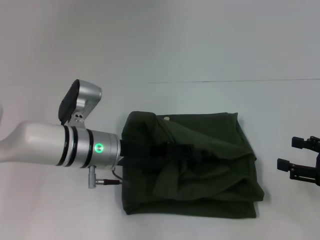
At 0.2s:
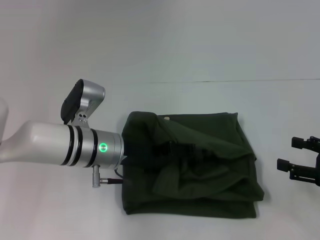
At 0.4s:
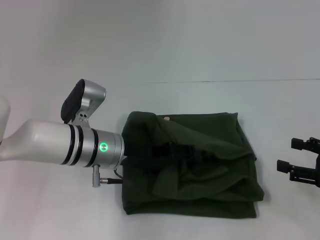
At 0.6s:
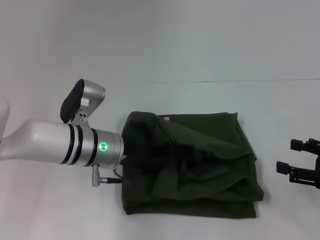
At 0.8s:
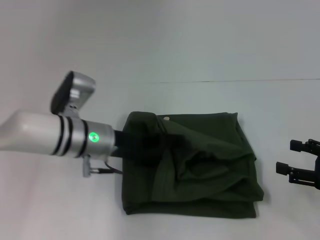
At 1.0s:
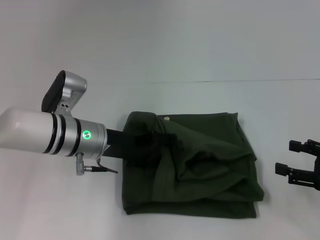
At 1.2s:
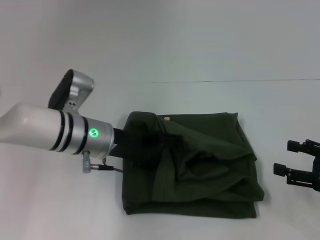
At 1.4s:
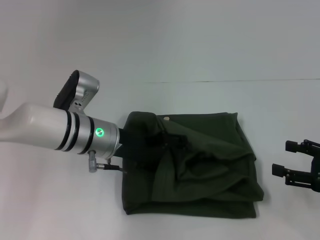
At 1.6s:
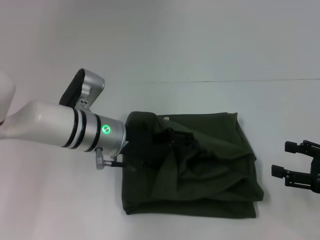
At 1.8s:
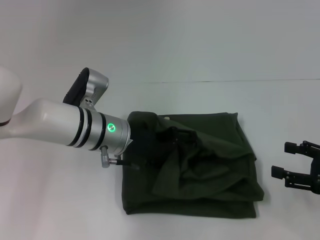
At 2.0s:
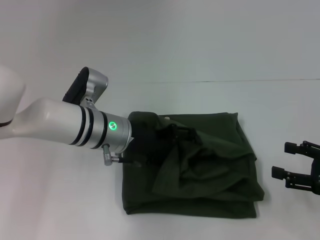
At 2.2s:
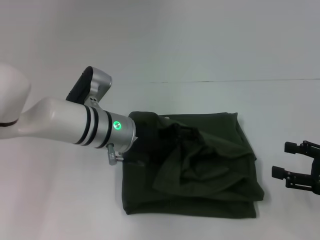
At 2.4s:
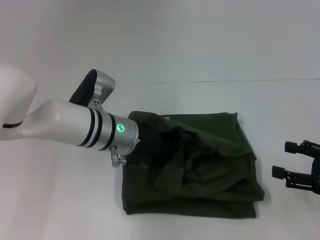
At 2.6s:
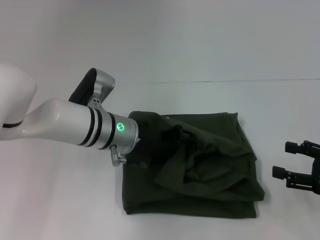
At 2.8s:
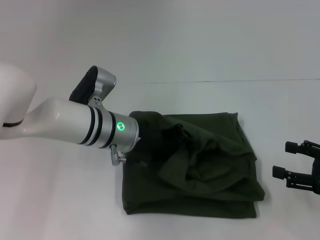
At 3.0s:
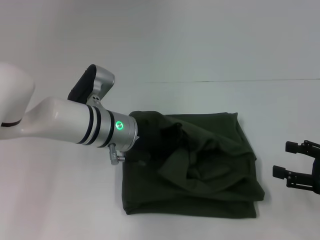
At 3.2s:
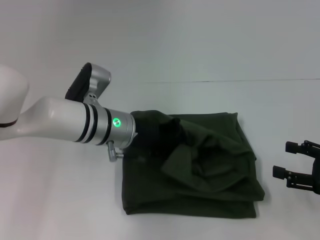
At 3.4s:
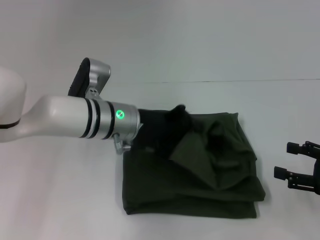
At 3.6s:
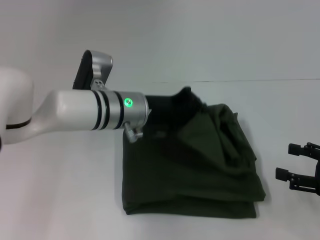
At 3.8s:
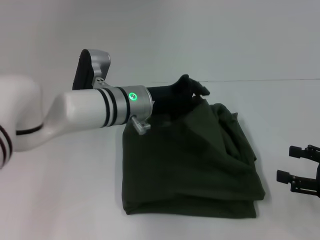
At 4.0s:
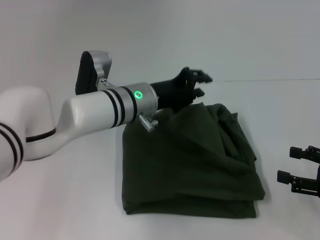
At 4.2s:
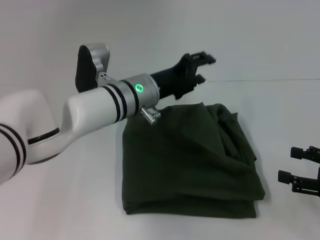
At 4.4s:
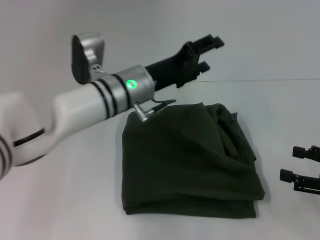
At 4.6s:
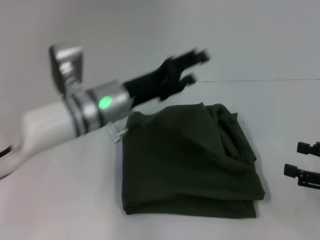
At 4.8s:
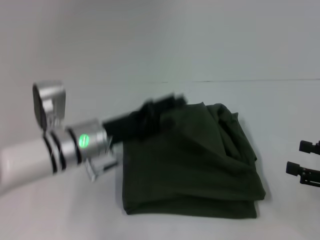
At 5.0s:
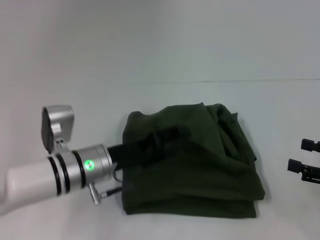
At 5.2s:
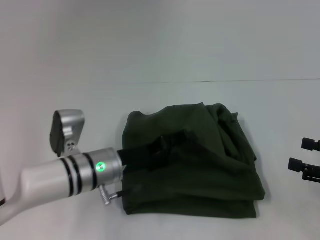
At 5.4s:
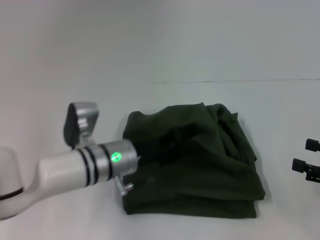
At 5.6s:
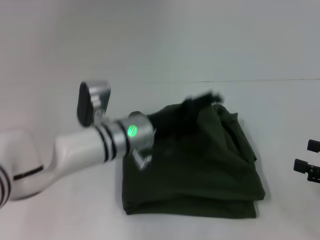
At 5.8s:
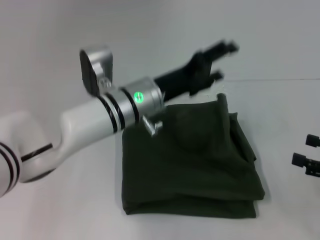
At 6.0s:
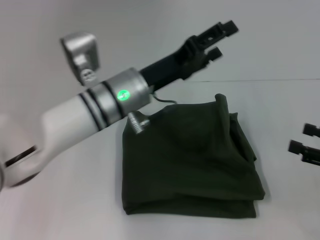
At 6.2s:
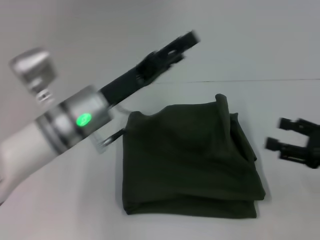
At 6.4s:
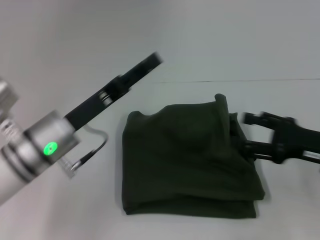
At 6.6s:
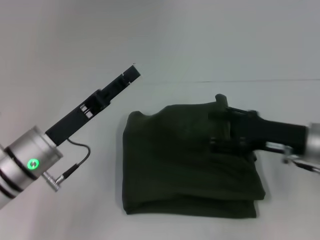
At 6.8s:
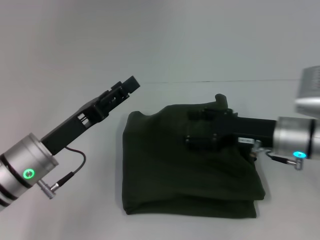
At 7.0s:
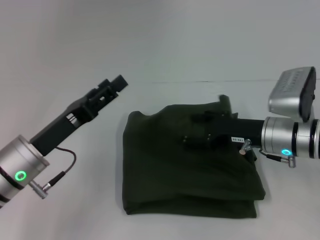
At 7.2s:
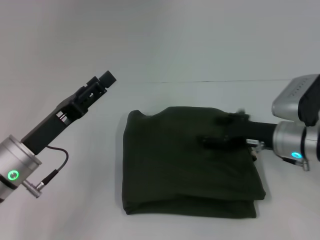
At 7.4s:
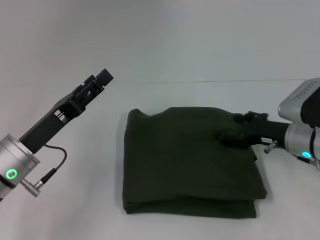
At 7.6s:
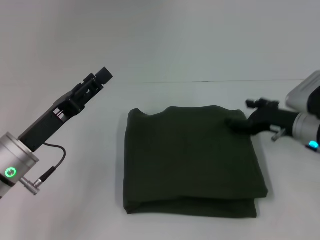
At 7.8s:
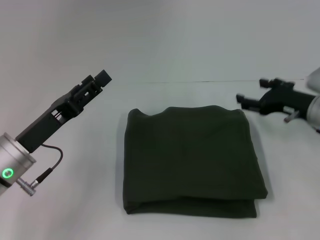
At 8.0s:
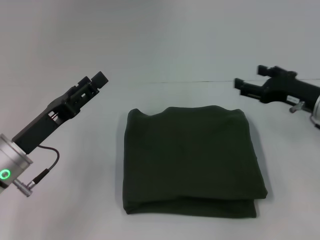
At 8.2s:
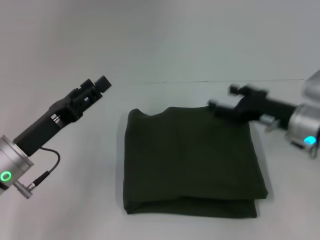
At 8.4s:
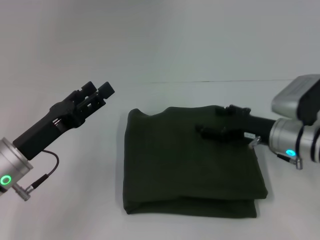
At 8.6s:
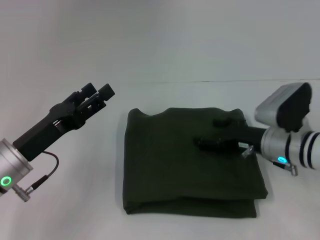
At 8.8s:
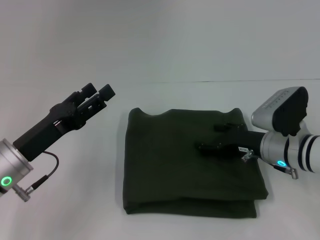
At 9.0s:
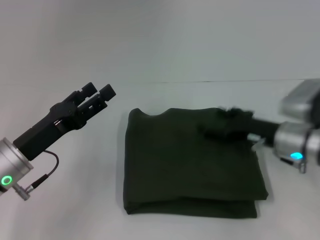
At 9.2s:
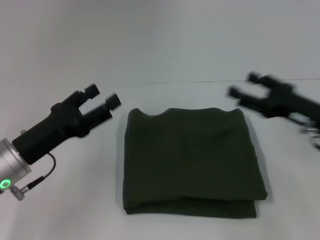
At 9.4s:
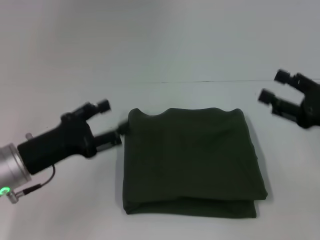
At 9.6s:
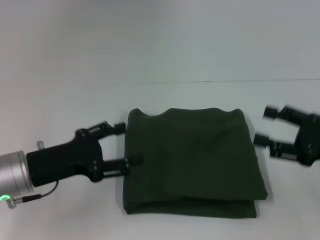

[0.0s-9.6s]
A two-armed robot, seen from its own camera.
0.0s to 1.6s: The grippers make only small movements.
1.6s to 3.2s: The left gripper closes its fingers.
3.2s to 4.8s: The left gripper ends up roughly 5 cm from where it was, and opens its fingers.
4.8s to 6.4s: The right gripper shifts roughly 5 cm to the left, while the left gripper reaches about 10 cm to the right, then returns.
6.4s to 8.0s: The left gripper goes about 5 cm to the left; the right gripper travels forward by some 10 cm, and goes to the left and returns, roughly 10 cm each way.
8.0s to 9.6s: The right gripper is displaced backward by roughly 10 cm.

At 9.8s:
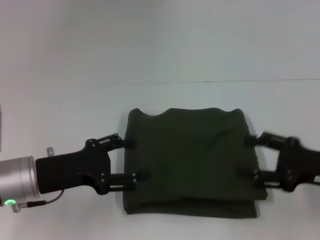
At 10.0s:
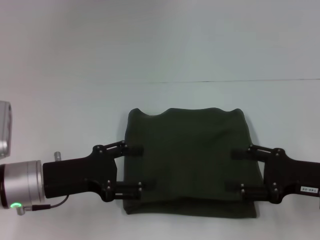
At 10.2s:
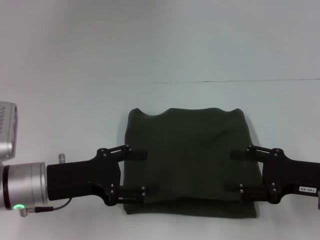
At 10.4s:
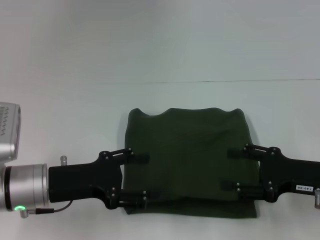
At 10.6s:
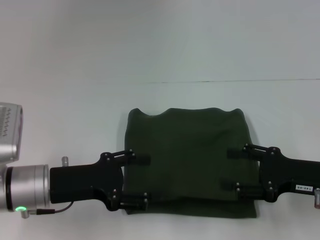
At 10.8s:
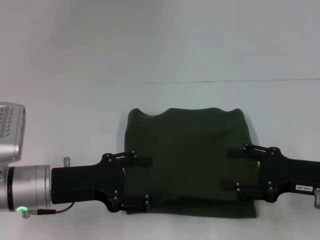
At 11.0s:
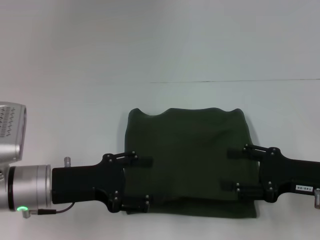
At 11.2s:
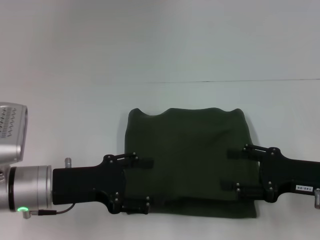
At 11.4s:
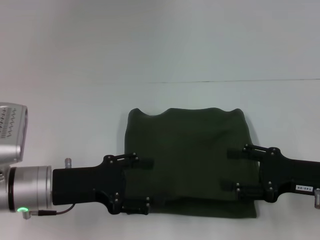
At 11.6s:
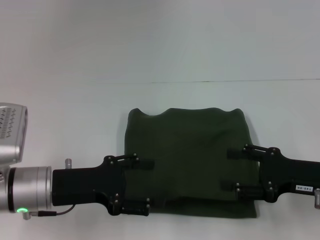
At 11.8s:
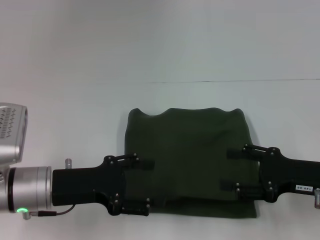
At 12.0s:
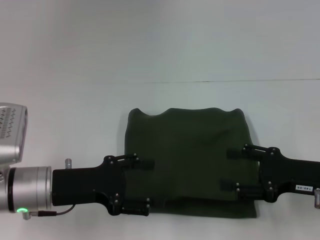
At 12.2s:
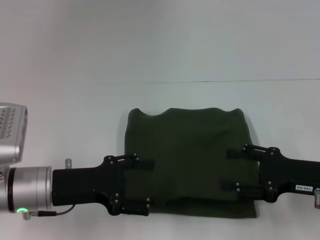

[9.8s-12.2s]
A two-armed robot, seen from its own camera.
9.8s to 11.0s: The grippers stay close to where they were, moving slightly.
11.0s to 12.2s: Both grippers stay about where they are.
